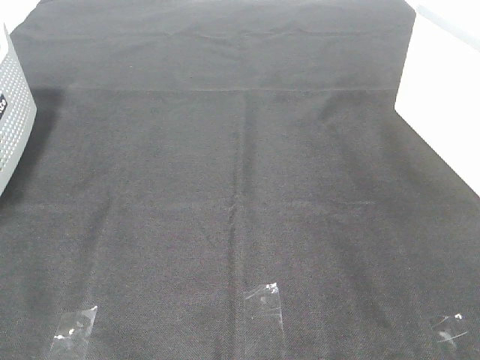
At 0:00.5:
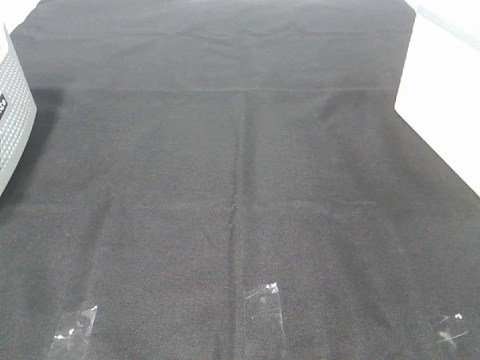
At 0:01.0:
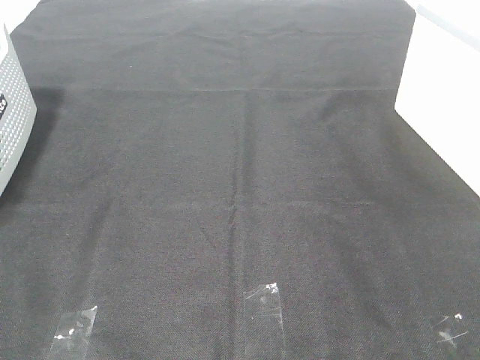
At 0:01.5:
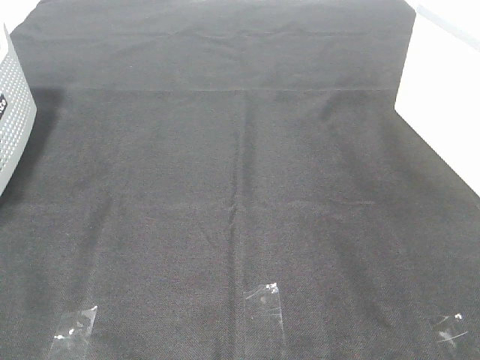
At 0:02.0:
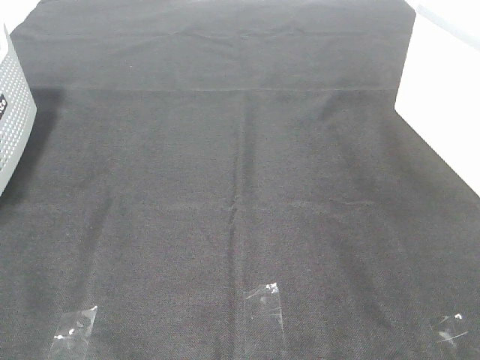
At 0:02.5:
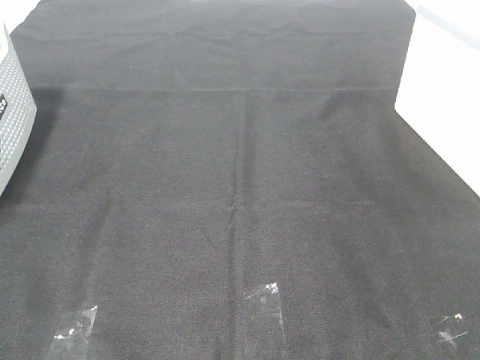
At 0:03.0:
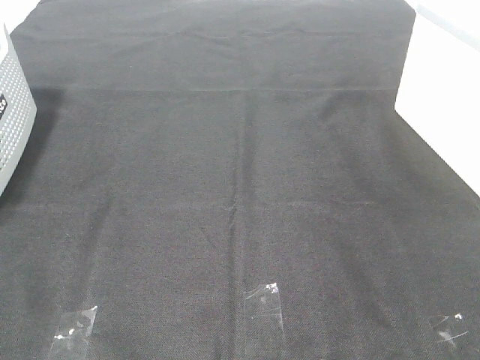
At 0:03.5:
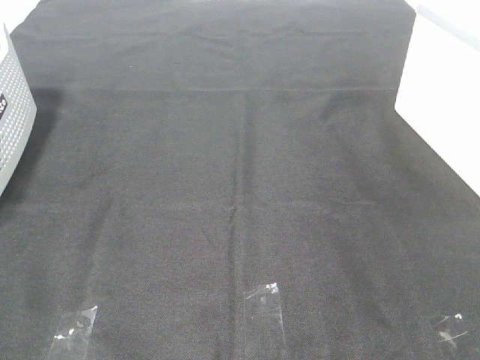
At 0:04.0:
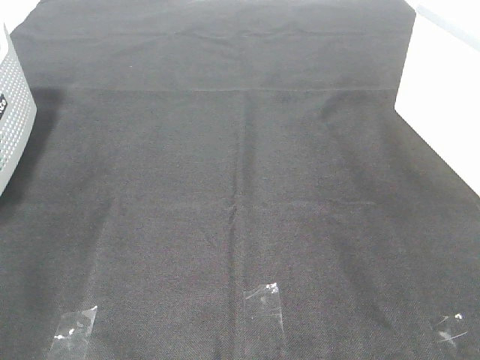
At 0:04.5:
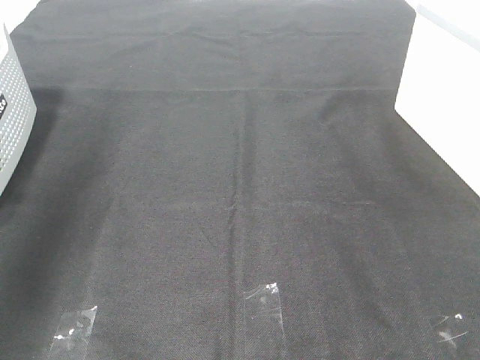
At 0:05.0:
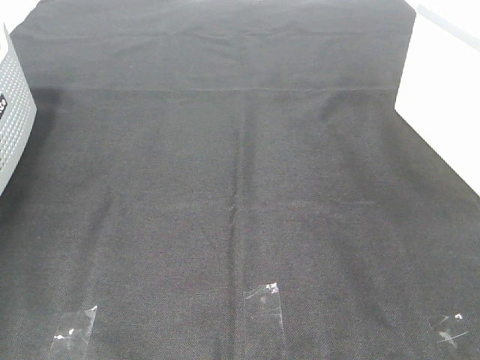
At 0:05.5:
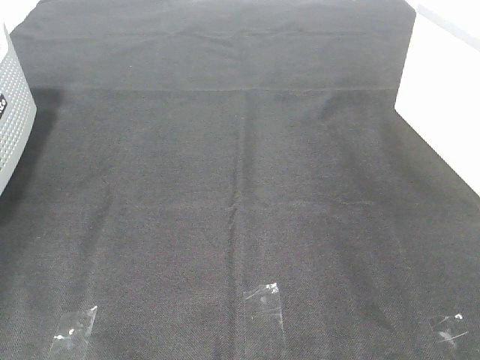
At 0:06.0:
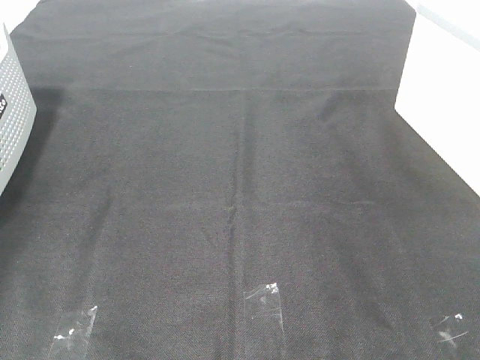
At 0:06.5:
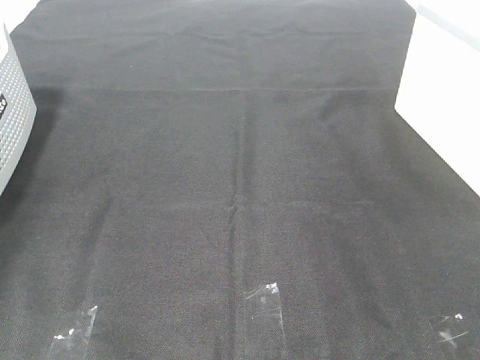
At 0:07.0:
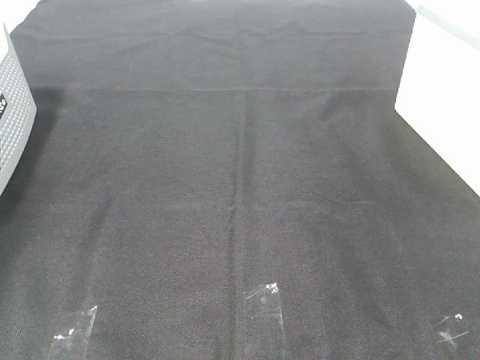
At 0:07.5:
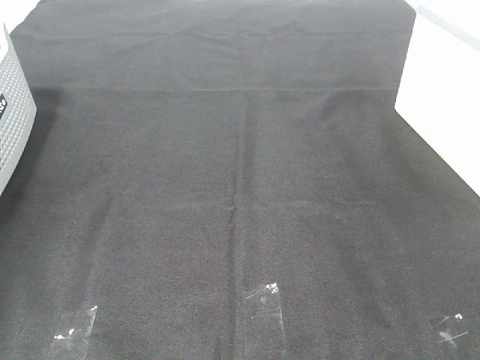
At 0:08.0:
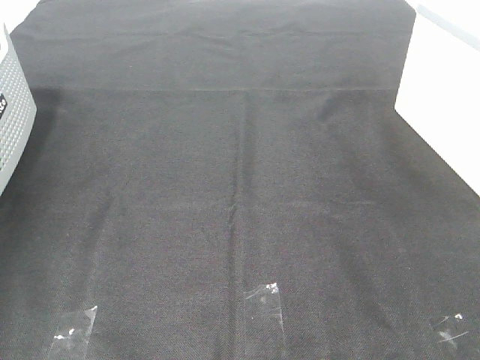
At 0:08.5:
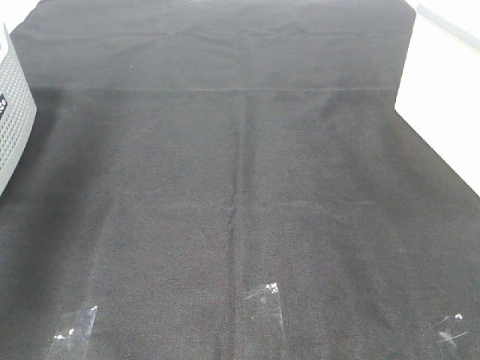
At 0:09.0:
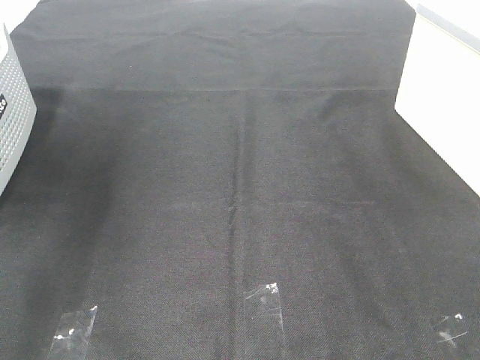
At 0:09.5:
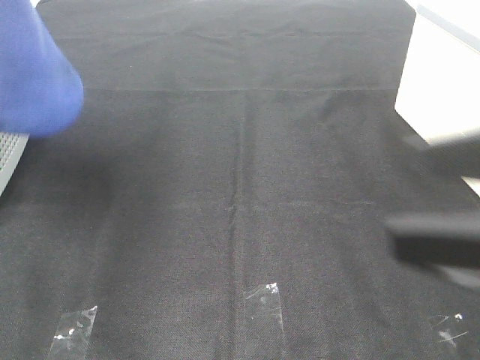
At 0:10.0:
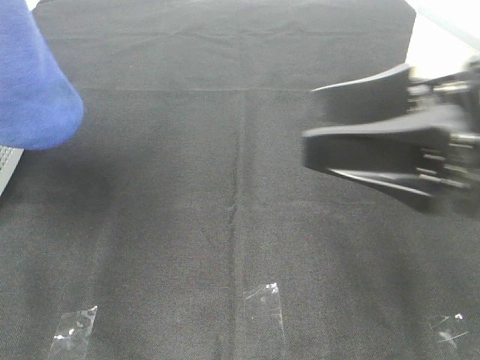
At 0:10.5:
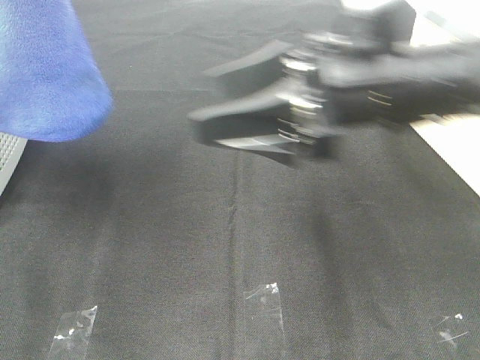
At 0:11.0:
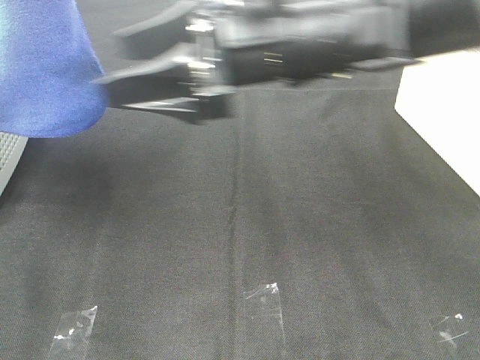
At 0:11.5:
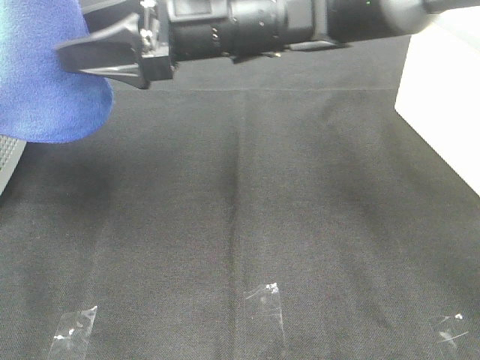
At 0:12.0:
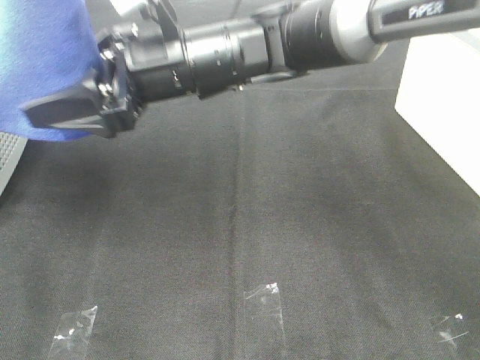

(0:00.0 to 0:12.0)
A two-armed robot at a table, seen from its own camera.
Task of the whole recording: Remove the towel and place it.
0:00.0 - 0:02.0: Neither gripper changes place.
0:04.0 - 0:06.0: The left gripper travels forward, downward and to the left by roughly 40 cm.
0:08.0 - 0:10.0: The right gripper is displaced forward and to the left by roughly 20 cm, while the left gripper is displaced to the right and backward by about 25 cm.
0:10.0 - 0:12.0: The right gripper goes roughly 25 cm to the left and forward.

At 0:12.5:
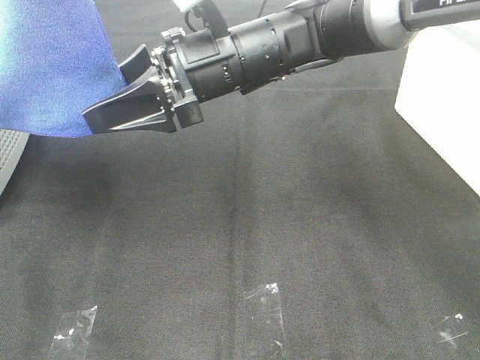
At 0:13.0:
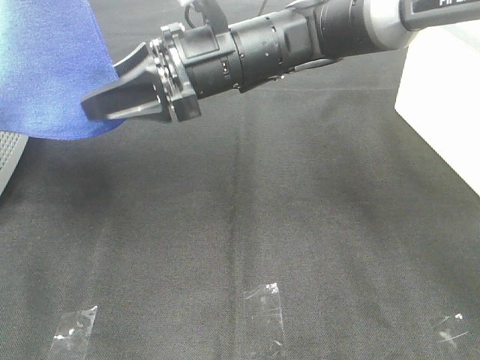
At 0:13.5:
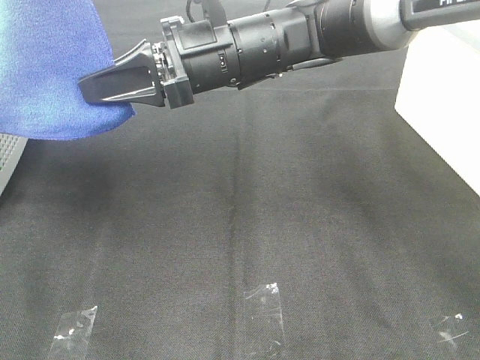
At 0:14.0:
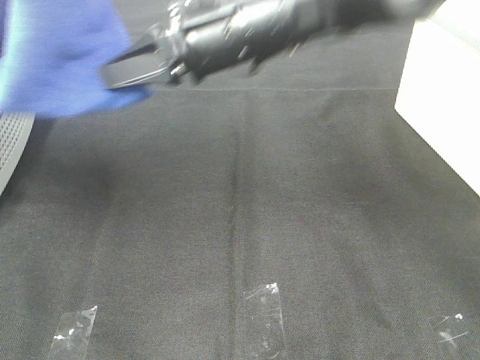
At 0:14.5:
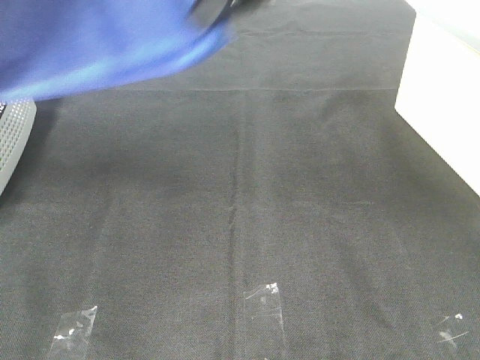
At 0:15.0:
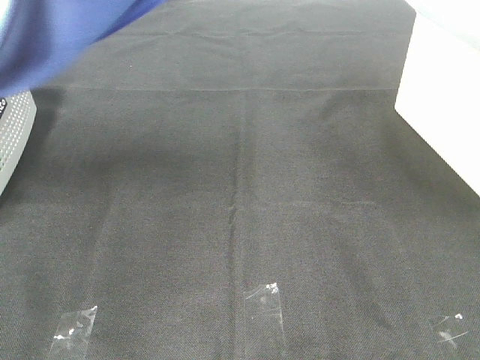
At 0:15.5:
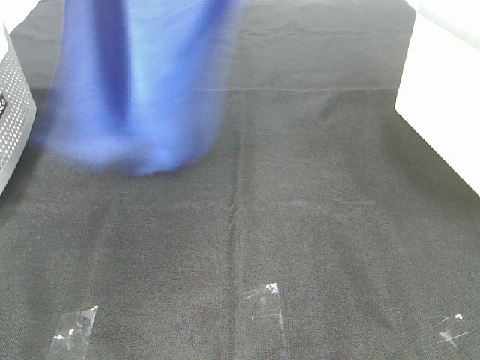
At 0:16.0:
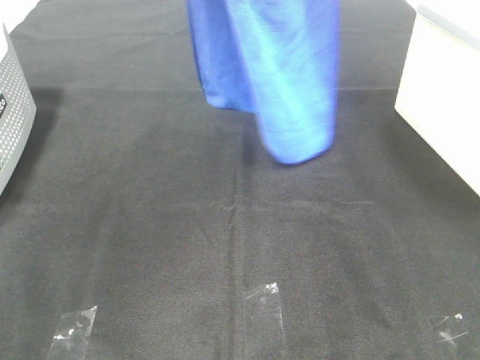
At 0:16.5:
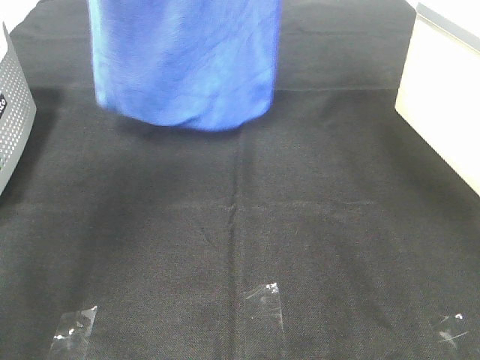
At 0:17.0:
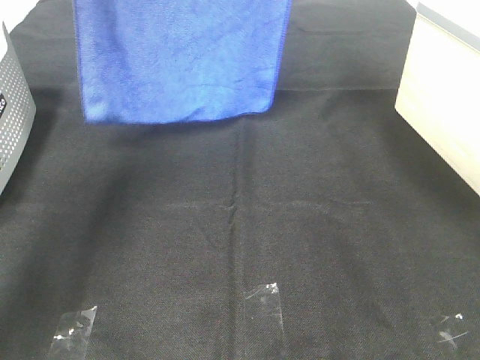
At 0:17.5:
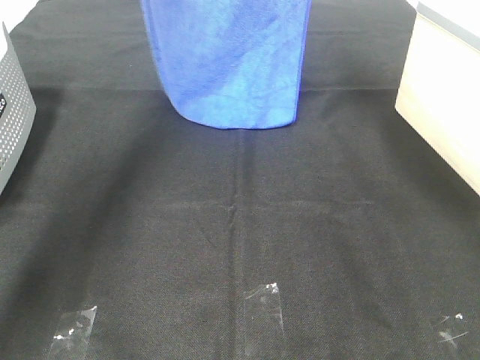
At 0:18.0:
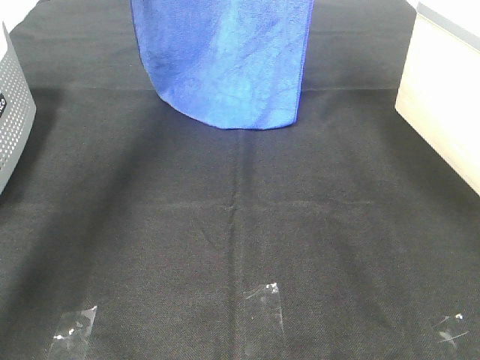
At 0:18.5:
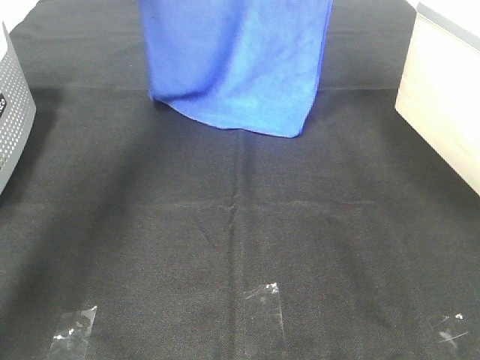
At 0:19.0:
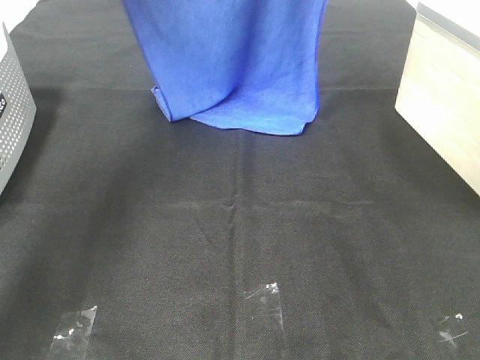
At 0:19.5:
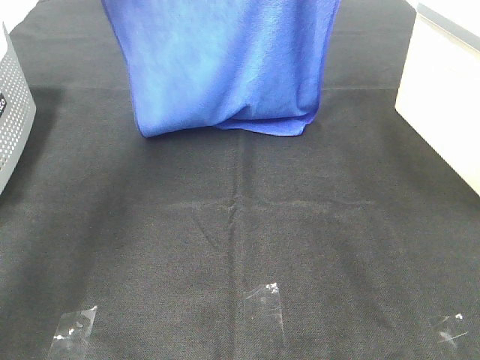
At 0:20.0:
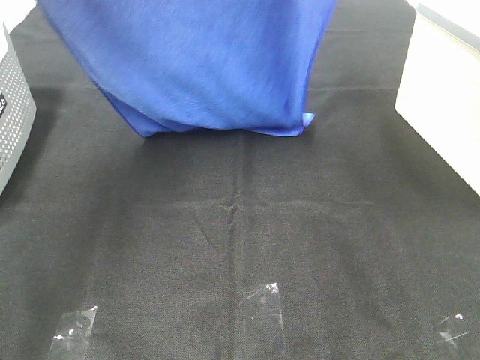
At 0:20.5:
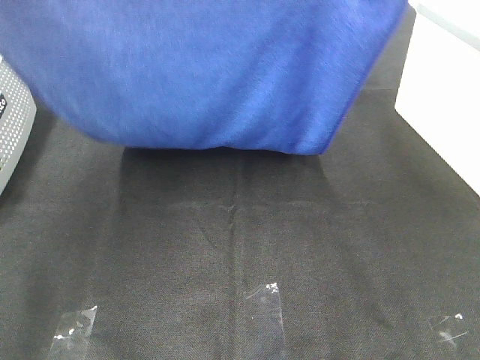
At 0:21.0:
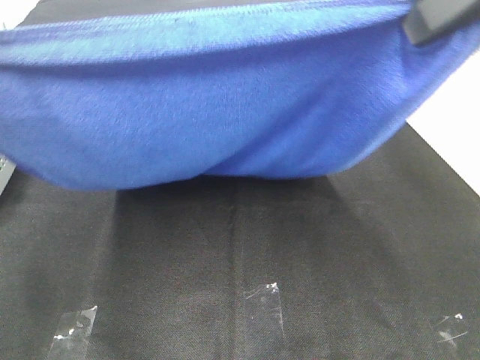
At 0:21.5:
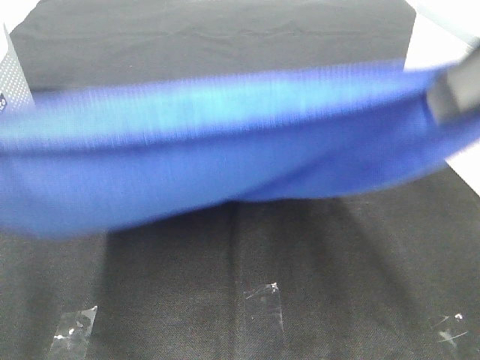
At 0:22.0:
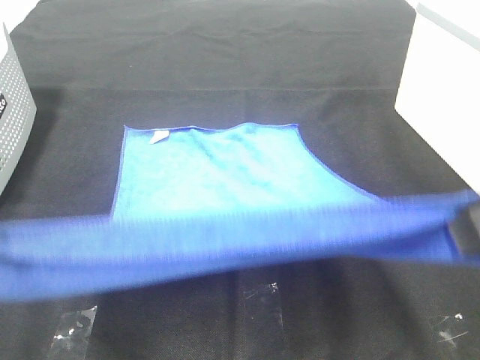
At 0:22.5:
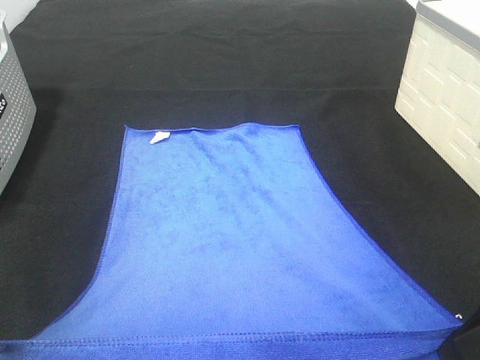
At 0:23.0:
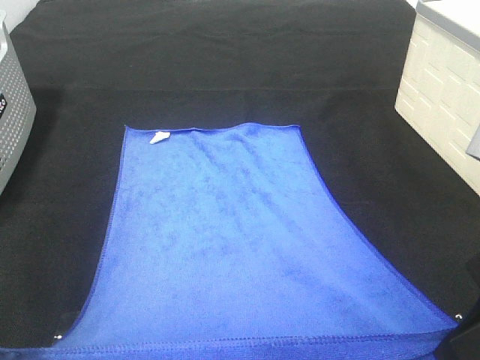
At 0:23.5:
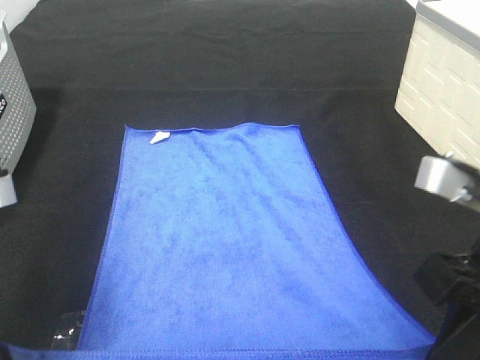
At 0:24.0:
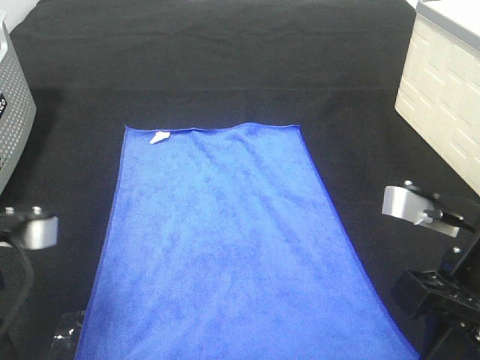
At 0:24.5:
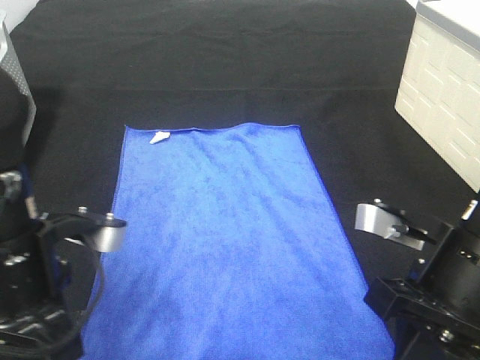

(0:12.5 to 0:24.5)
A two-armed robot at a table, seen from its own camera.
Task of the whole recording: Remove the towel and place it.
Step, 0:13.5 - 0:21.5: Left hand: spread the blue towel flat on the table.
Step, 0:13.5 - 0:21.5: Right hand: spread the blue towel flat on the table.
0:12.5 - 0:14.5: The right gripper is displaced upward and to the right by some 15 cm, and closes up.
0:14.5 - 0:16.5: The left gripper heads forward, covering roughly 15 cm. The right gripper travels upward by about 15 cm.
0:16.5 - 0:18.5: The right gripper heads downward, forward and to the right, covering roughly 10 cm; the left gripper is displaced forward and downward by some 15 cm.
0:18.5 - 0:20.5: Both grippers travel together backward, roughly 25 cm.
0:20.5 - 0:22.5: The grippers both shift downward and backward by approximately 20 cm.
0:22.5 - 0:24.5: The right gripper goes some 10 cm downward and forward. The left gripper goes roughly 15 cm downward, to the right and forward.

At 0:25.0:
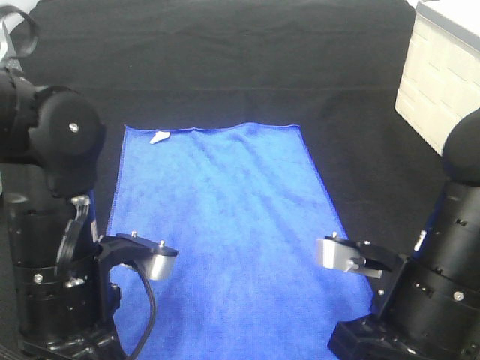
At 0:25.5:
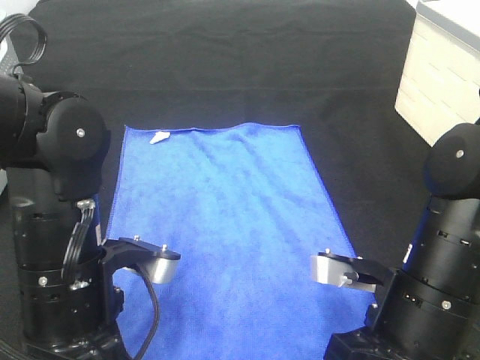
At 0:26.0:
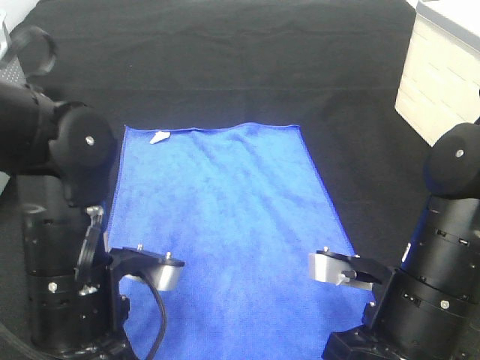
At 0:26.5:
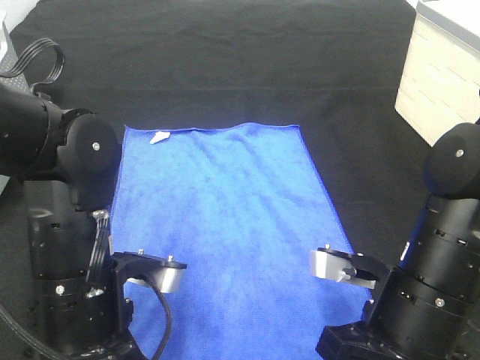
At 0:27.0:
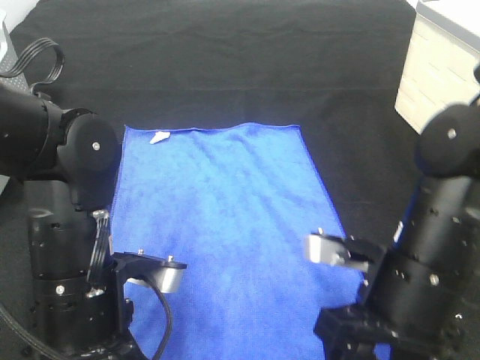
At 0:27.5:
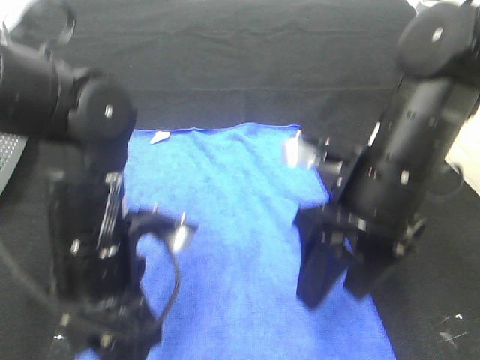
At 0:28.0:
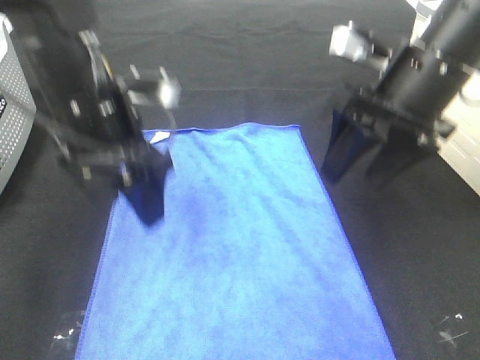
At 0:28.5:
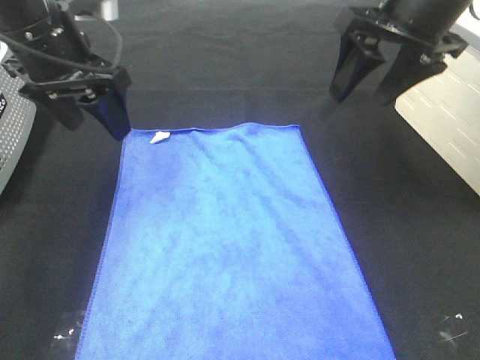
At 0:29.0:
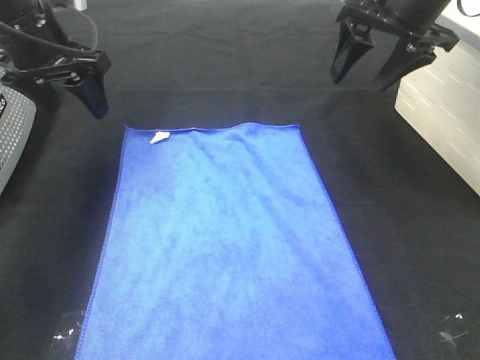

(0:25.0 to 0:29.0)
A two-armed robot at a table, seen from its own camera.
Task of the whole recording: Remove the towel and place it.
0:25.0 - 0:27.0: The right gripper opens, while the left gripper opens.
0:27.0 - 0:29.0: The right gripper shifts approximately 30 cm forward and upward. The left gripper is displaced forward, upward and to the left by roughly 30 cm.
